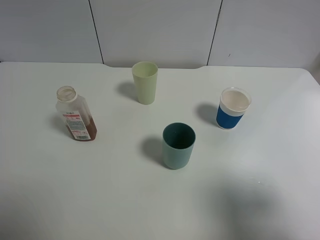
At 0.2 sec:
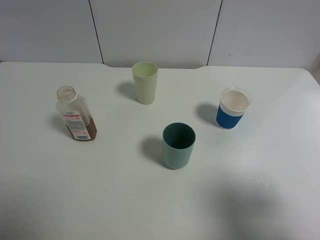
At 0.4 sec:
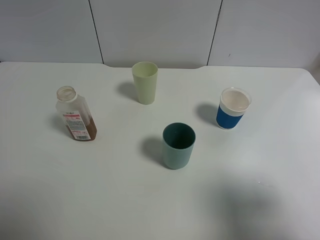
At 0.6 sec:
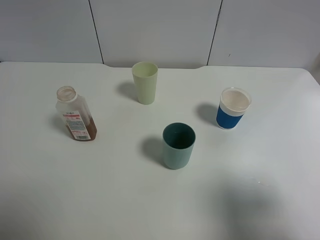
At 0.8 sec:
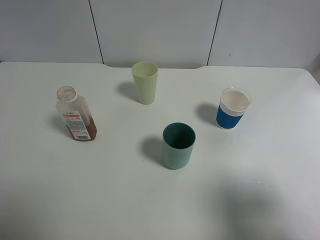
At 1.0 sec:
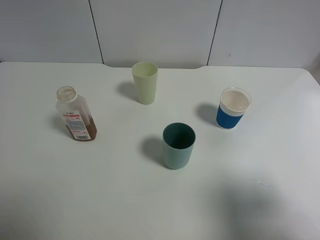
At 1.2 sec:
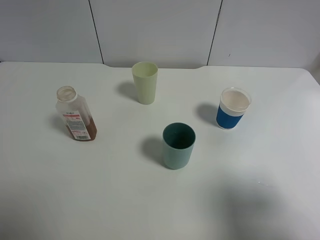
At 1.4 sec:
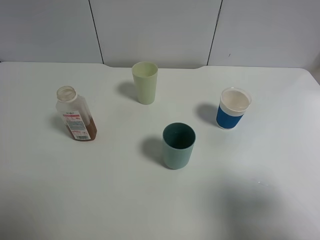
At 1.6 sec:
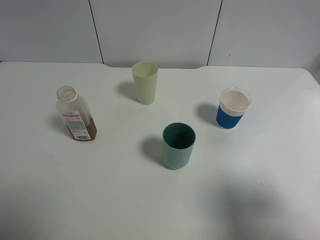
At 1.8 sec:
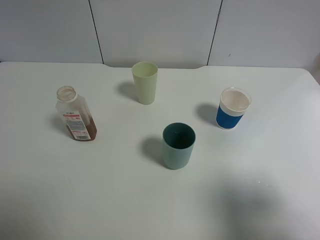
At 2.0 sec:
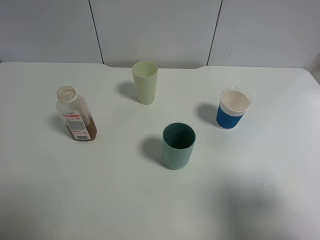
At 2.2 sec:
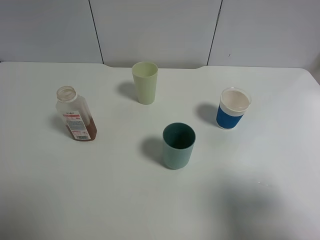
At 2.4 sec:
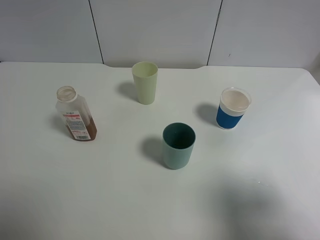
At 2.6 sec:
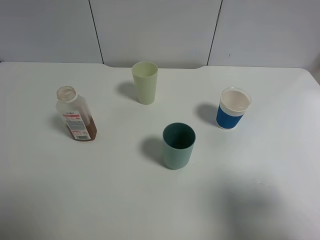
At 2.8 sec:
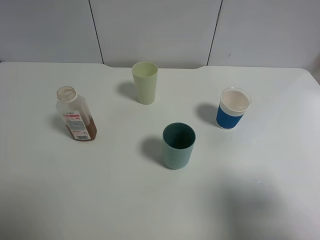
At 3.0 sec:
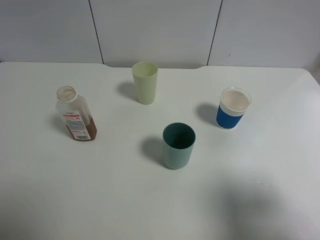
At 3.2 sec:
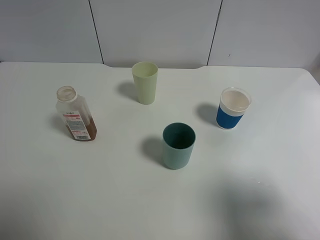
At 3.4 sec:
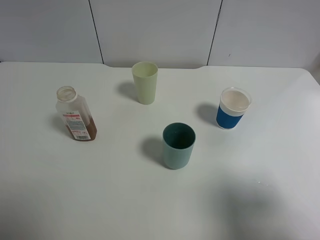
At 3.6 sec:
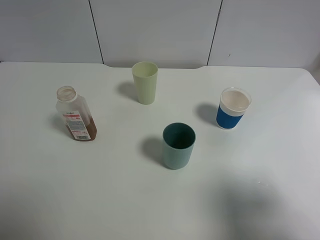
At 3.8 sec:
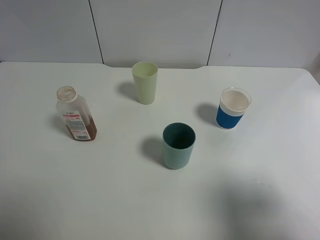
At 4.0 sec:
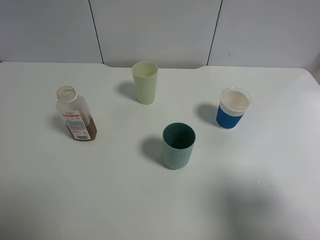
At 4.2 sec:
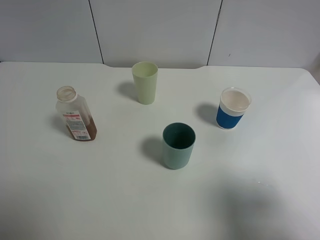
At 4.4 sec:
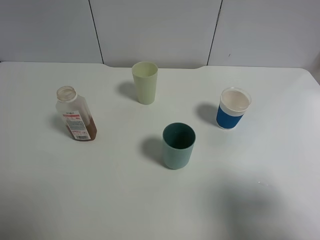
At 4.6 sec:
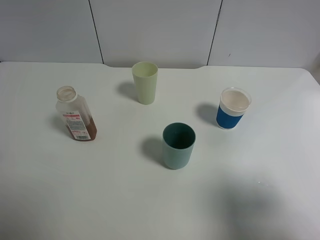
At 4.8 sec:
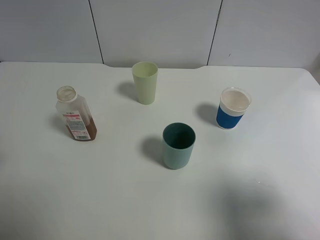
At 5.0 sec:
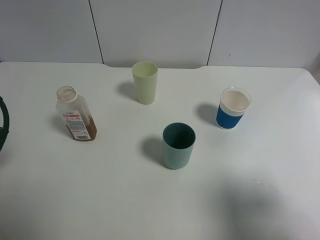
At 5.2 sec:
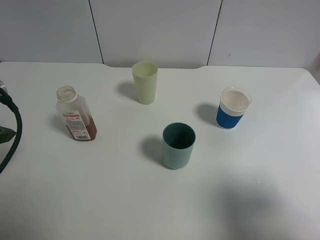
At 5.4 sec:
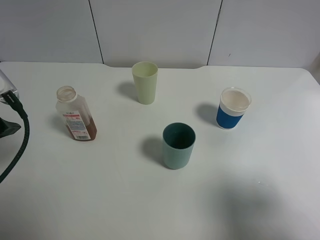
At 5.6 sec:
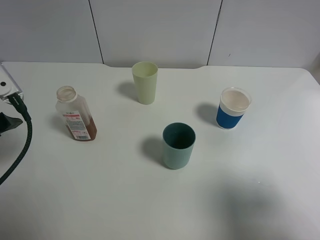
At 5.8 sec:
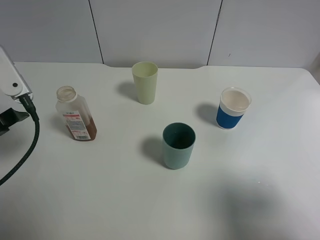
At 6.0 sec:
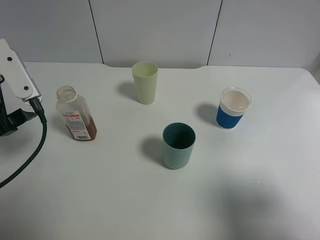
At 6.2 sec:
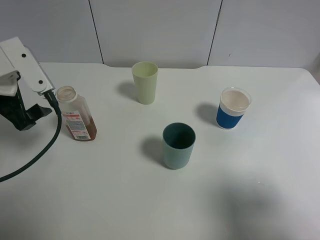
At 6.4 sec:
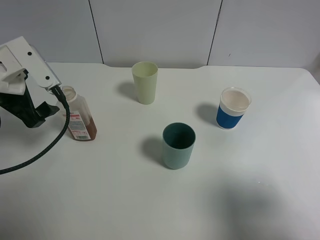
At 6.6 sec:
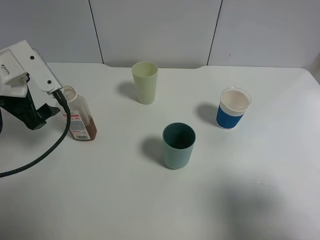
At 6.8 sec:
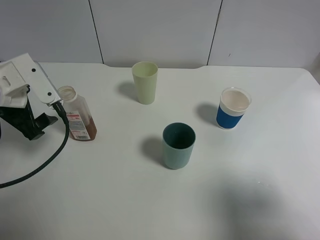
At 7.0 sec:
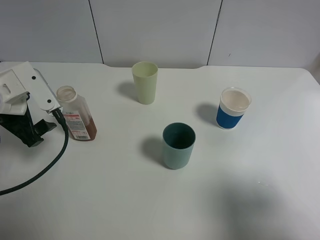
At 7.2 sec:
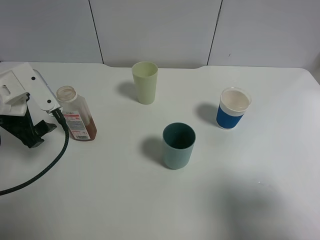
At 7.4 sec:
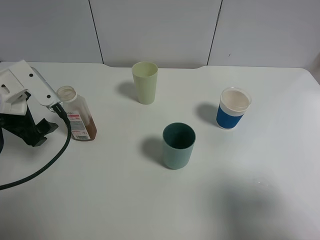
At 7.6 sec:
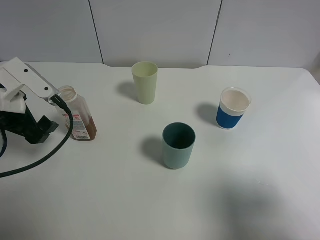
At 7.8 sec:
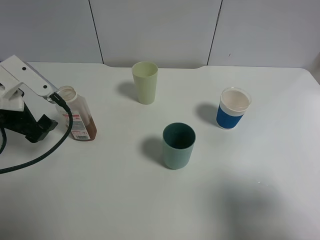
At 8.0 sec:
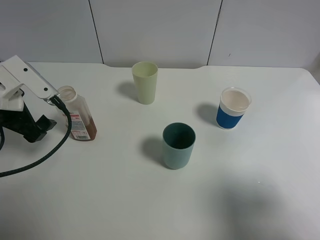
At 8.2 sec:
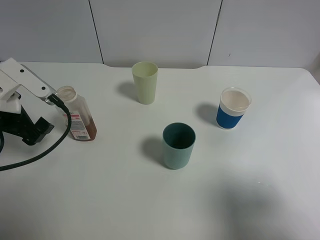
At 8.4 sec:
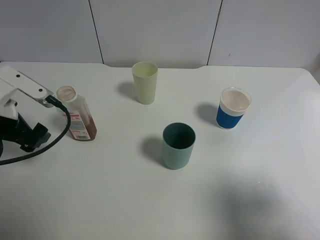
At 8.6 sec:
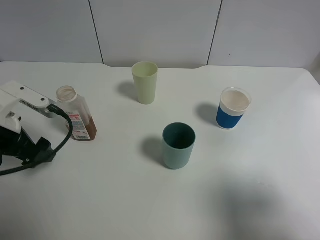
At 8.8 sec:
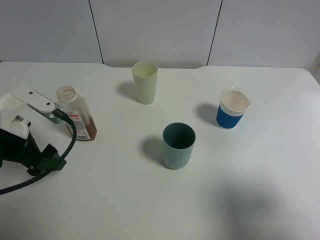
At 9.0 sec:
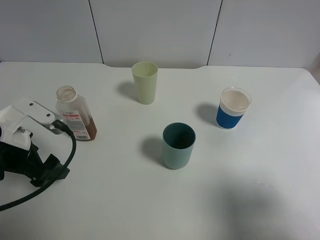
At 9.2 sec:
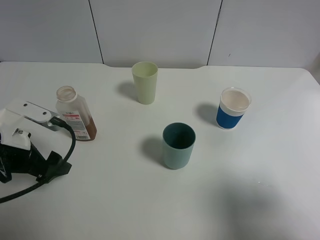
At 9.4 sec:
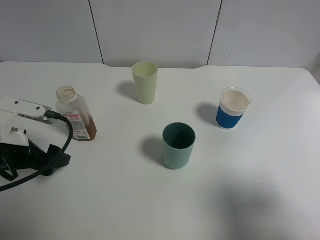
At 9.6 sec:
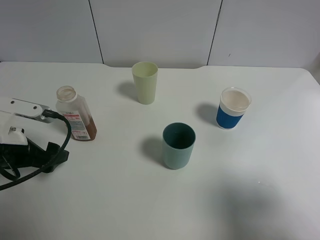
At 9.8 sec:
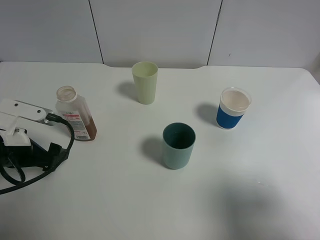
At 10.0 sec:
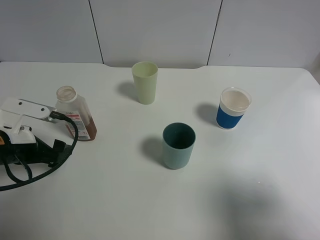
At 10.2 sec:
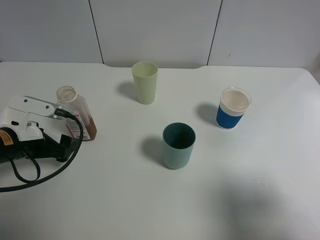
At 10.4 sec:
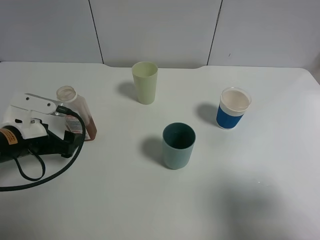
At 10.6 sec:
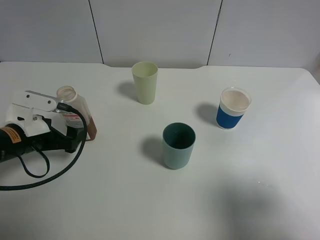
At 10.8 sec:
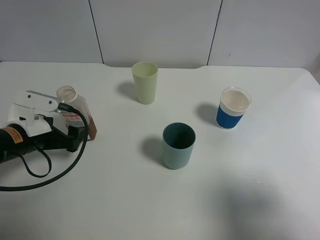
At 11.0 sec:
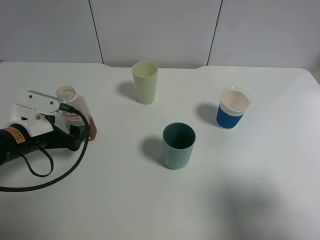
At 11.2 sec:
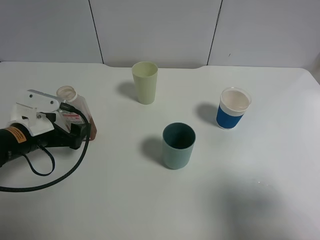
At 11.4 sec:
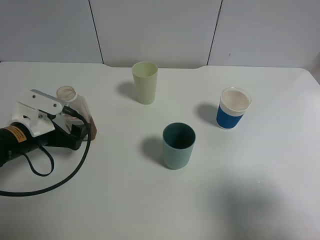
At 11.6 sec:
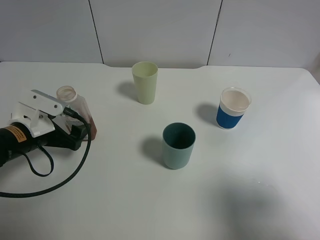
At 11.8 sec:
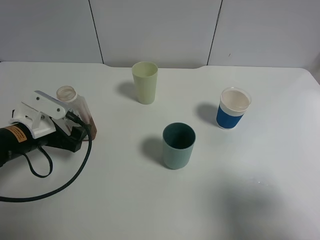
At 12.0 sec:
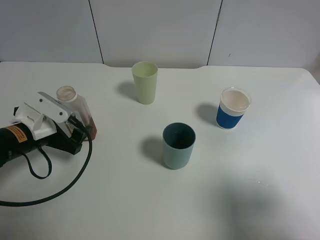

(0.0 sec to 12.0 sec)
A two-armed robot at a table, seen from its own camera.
Task of the whole recording: use a gripper to hold the bottle of the drink and pour it into a random cup.
0.0 sec - 3.0 sec: The two grippers keep their place.
4.4 sec - 6.0 sec: The left gripper shifts some 15 cm forward and downward.
6.0 sec - 7.6 sec: The left gripper ends up some 5 cm from where it was.
7.6 sec - 9.0 sec: The left gripper changes place by some 5 cm.
9.0 sec - 10.4 sec: The left gripper moves roughly 5 cm.

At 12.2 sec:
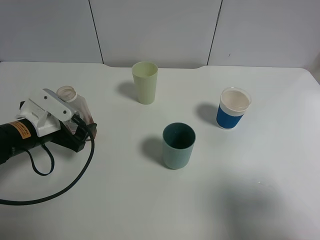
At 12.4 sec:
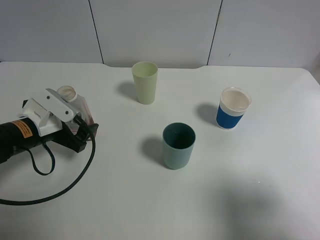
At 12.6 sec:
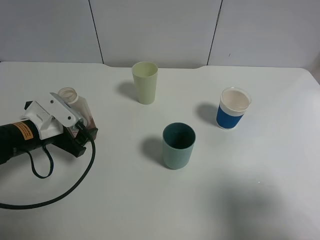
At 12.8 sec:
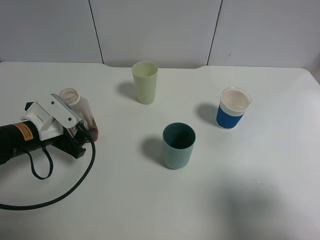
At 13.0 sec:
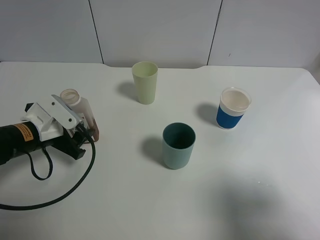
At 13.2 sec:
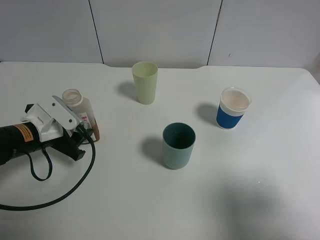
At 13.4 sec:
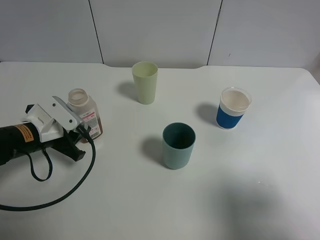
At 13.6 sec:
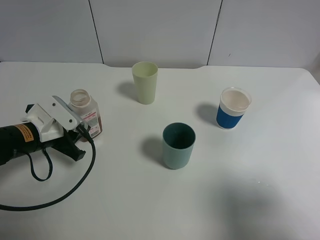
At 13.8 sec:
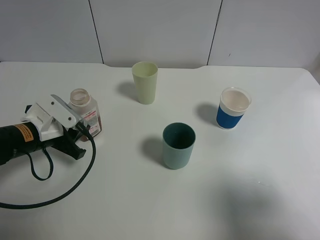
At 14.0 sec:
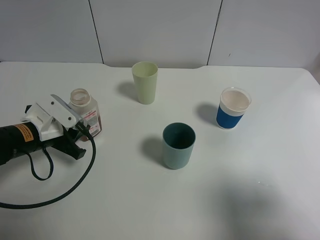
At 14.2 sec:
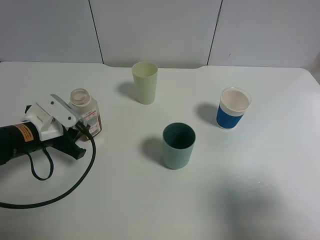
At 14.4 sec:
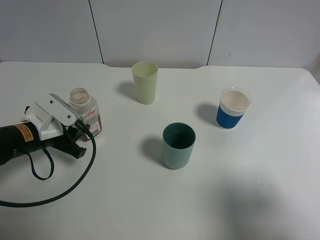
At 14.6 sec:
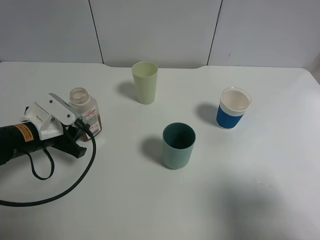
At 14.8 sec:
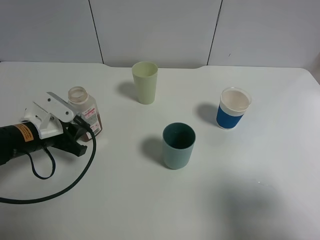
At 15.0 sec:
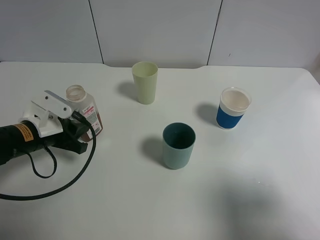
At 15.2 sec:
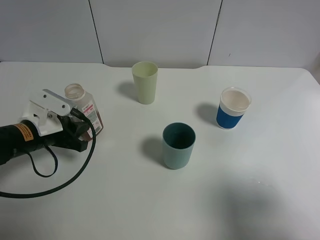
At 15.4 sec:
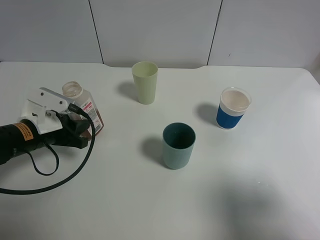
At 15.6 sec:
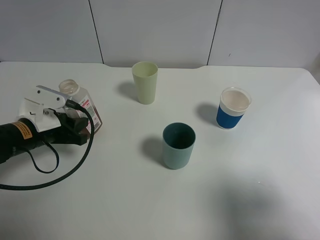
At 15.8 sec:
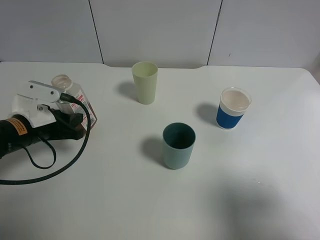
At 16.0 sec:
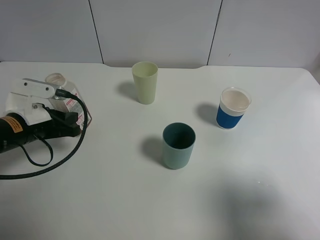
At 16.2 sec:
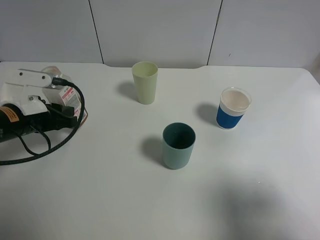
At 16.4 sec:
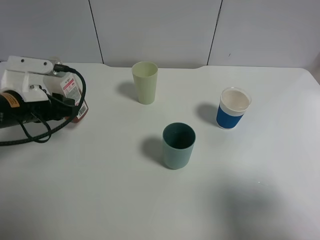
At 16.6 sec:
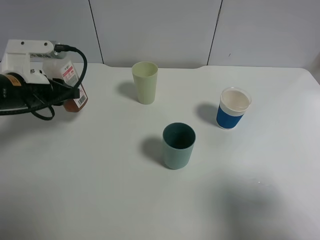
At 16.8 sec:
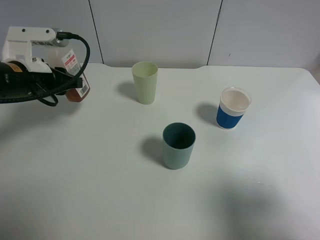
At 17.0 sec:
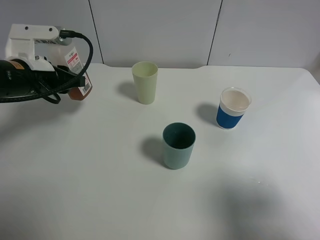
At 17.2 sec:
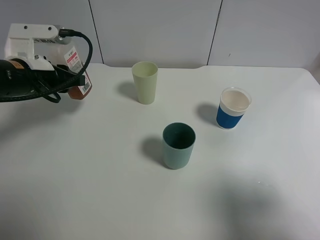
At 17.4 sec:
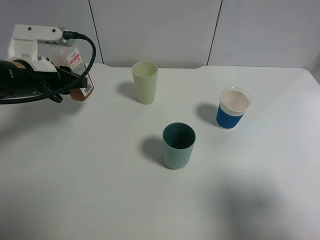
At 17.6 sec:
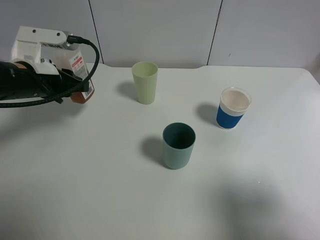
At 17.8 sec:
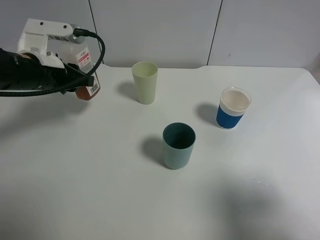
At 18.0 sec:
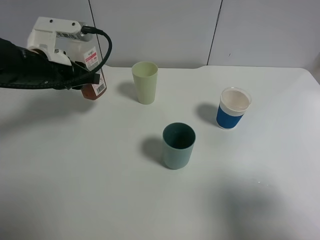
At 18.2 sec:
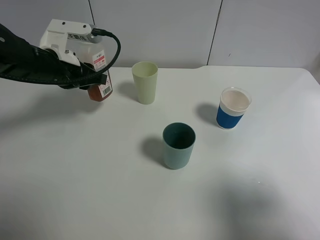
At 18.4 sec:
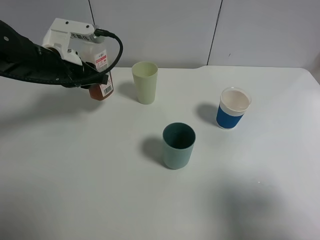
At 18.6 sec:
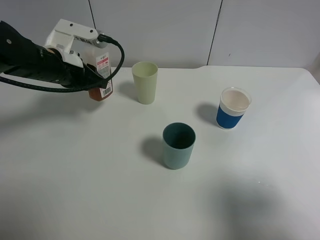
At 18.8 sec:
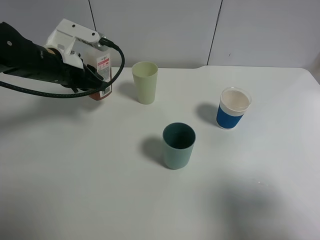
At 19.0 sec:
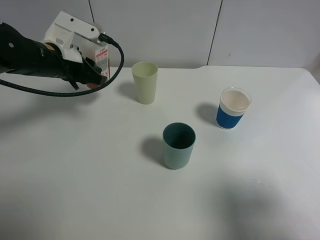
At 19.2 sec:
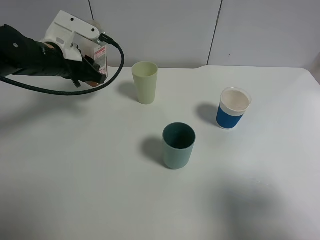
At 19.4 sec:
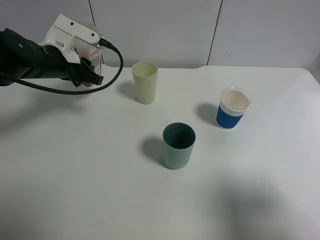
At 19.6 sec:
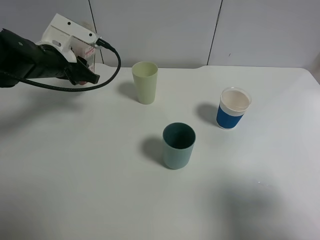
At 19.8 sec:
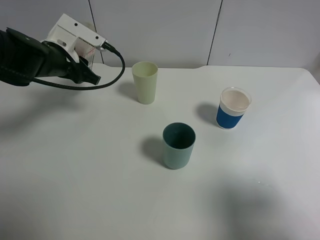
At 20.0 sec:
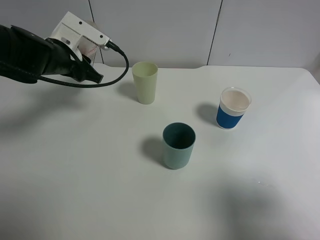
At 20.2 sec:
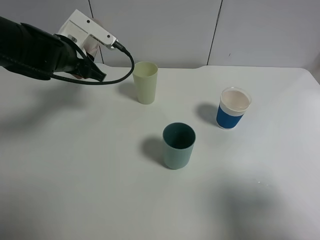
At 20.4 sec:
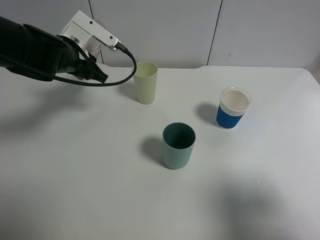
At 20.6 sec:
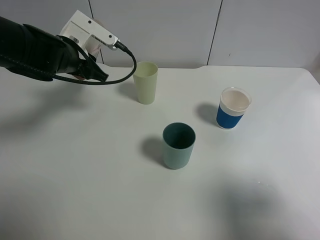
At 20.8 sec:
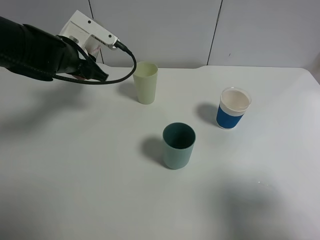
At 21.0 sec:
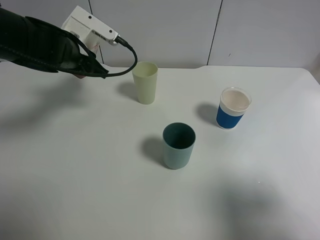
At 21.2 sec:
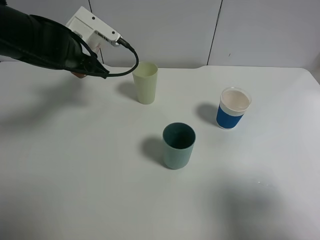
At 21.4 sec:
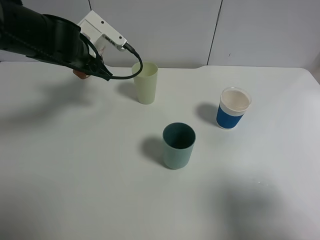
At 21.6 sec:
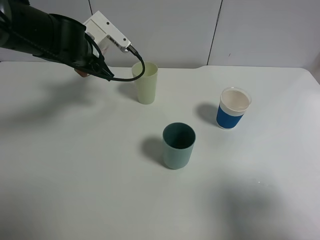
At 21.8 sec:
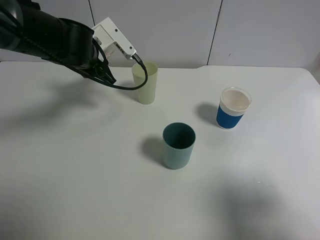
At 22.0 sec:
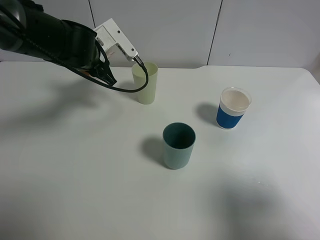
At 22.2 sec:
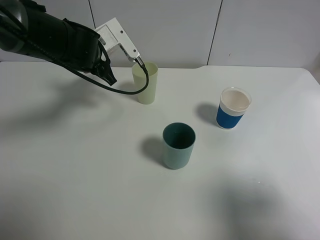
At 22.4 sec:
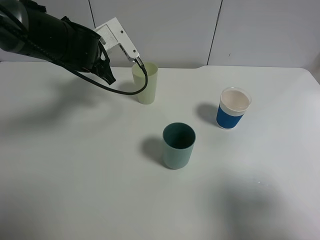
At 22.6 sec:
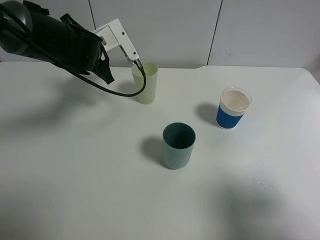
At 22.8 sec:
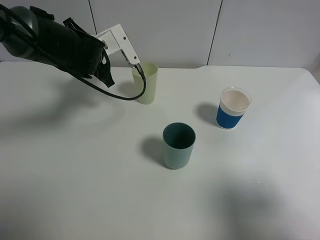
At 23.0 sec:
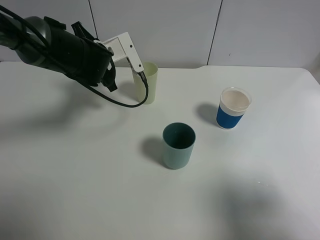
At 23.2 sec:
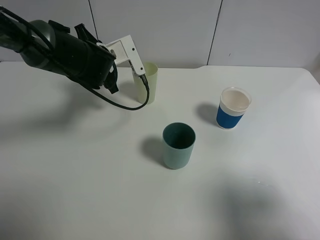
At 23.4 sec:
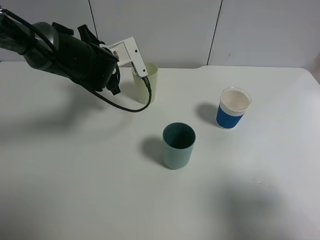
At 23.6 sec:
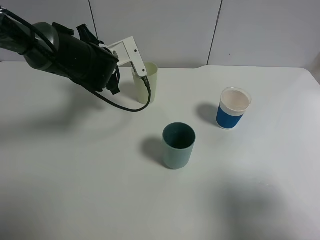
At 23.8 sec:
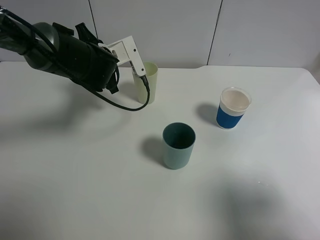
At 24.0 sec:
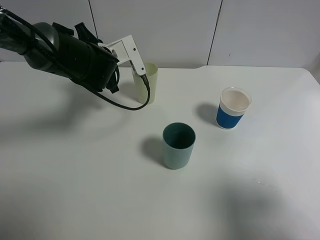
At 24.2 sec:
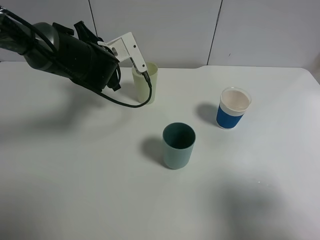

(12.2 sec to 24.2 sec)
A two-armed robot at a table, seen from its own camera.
Task of the whole recording: use a gripper to hold the bottle of the drink and pour it into a random cup.
12.2 sec - 13.8 sec: The left gripper closes up.
13.8 sec - 15.2 sec: The grippers stay close to where they were, moving slightly.
15.2 sec - 16.6 sec: The left gripper is displaced upward by approximately 10 cm.
16.6 sec - 18.2 sec: The left gripper shifts by roughly 5 cm.
19.8 sec - 21.2 sec: There are only small adjustments of the grippers.
22.6 sec - 24.2 sec: The grippers move only a little.
